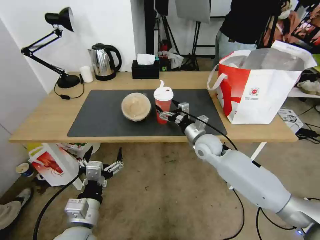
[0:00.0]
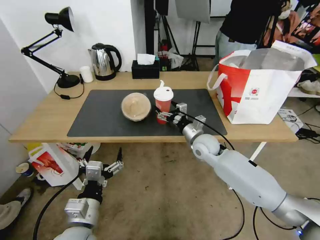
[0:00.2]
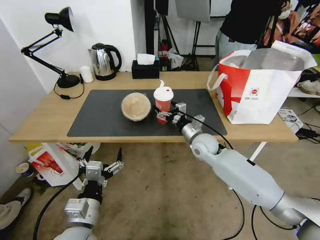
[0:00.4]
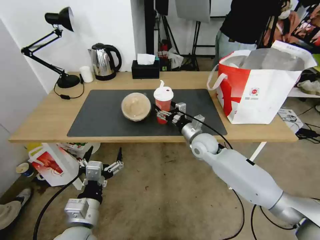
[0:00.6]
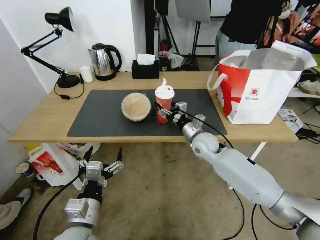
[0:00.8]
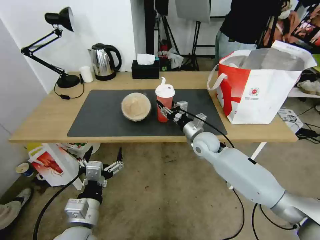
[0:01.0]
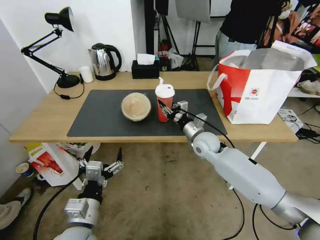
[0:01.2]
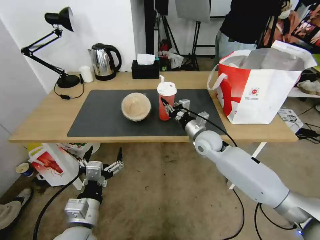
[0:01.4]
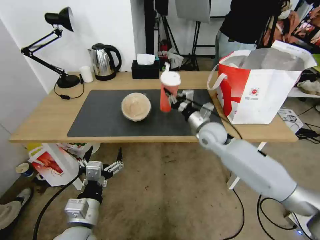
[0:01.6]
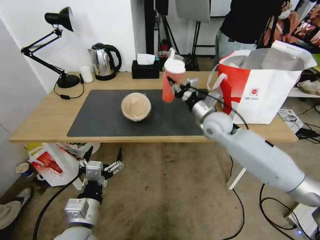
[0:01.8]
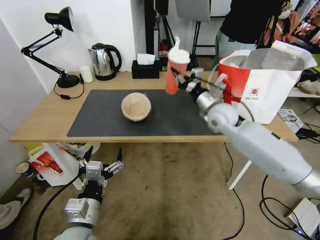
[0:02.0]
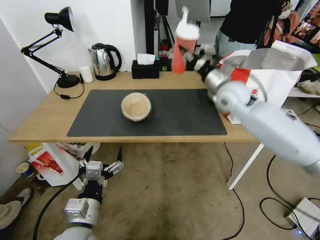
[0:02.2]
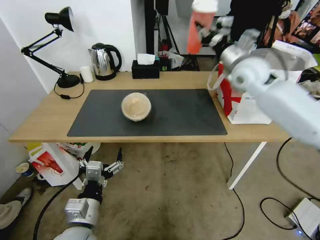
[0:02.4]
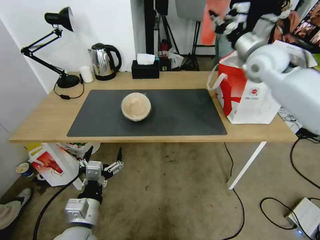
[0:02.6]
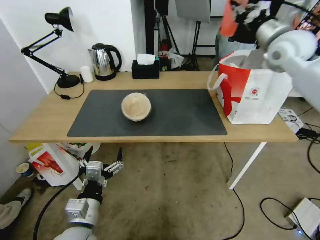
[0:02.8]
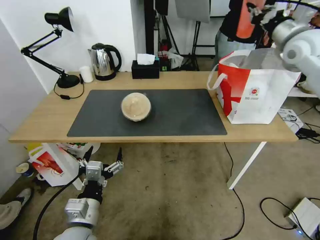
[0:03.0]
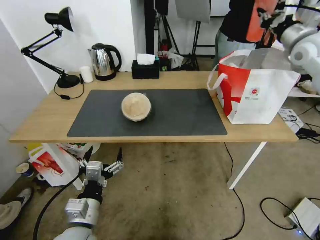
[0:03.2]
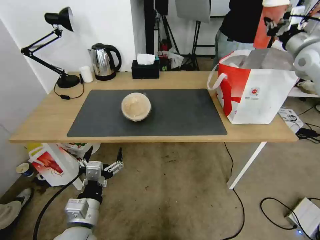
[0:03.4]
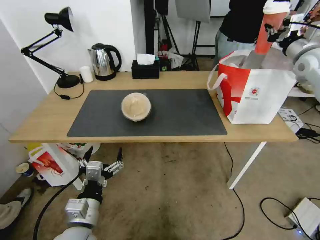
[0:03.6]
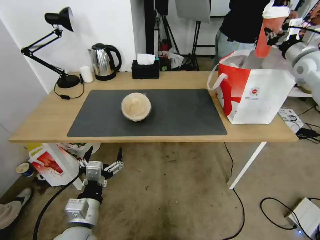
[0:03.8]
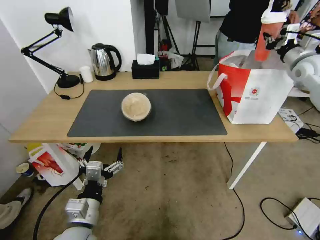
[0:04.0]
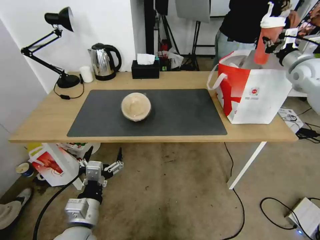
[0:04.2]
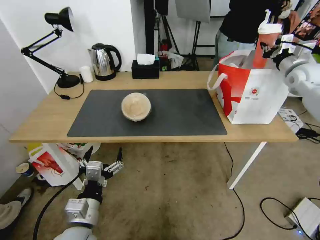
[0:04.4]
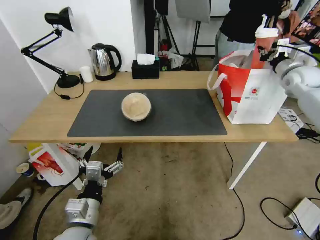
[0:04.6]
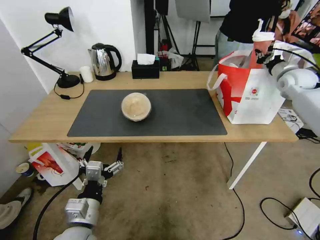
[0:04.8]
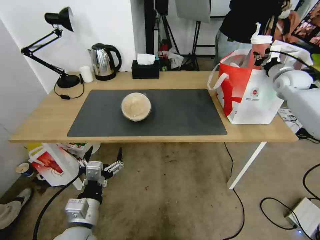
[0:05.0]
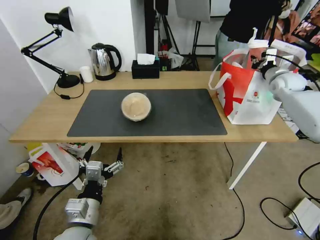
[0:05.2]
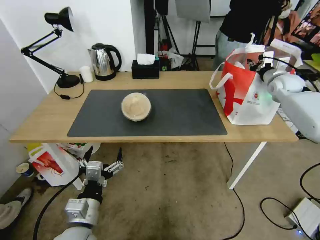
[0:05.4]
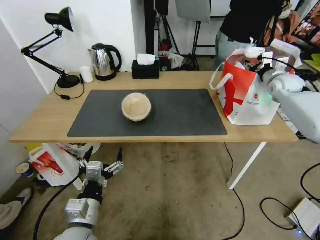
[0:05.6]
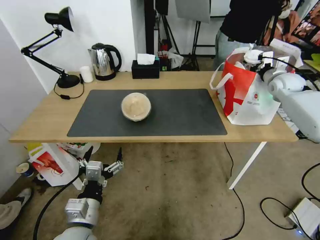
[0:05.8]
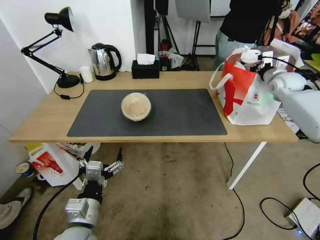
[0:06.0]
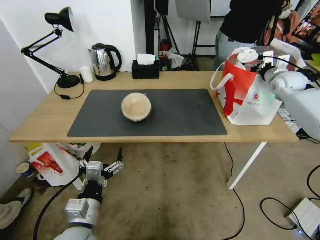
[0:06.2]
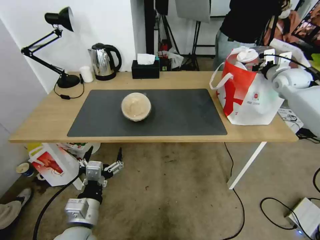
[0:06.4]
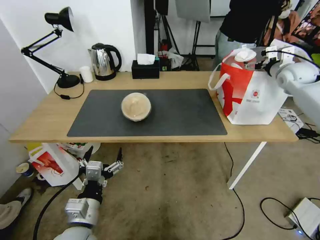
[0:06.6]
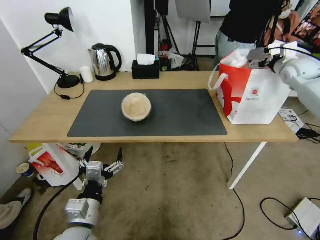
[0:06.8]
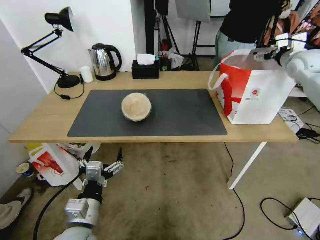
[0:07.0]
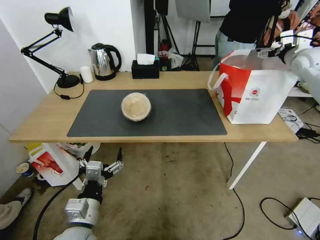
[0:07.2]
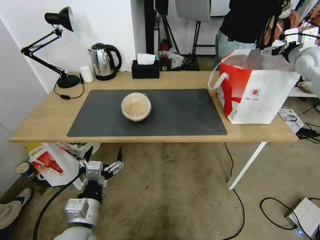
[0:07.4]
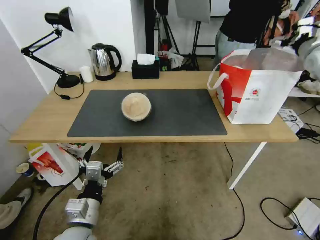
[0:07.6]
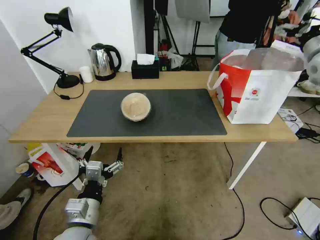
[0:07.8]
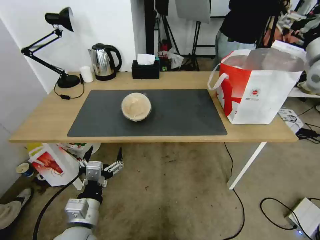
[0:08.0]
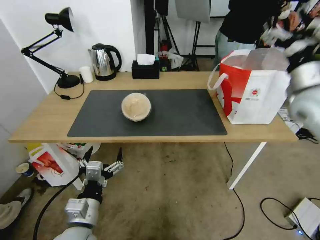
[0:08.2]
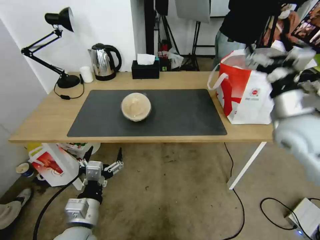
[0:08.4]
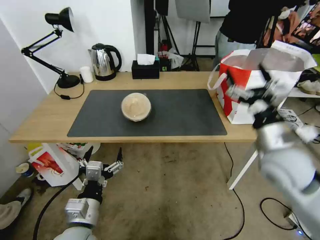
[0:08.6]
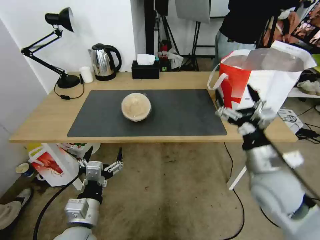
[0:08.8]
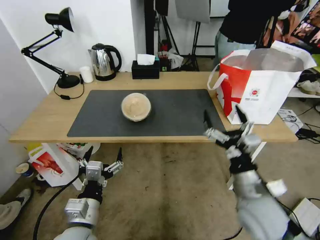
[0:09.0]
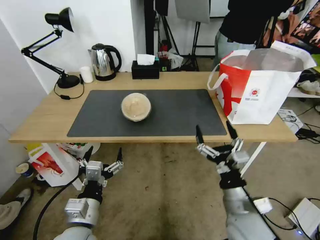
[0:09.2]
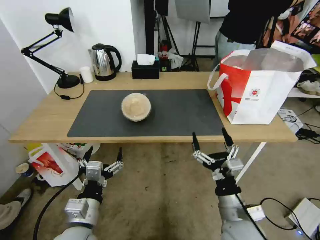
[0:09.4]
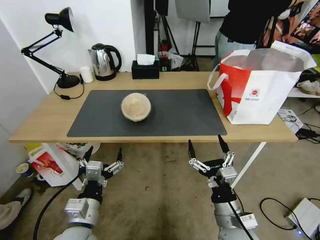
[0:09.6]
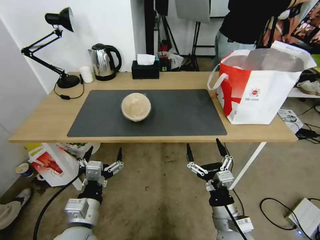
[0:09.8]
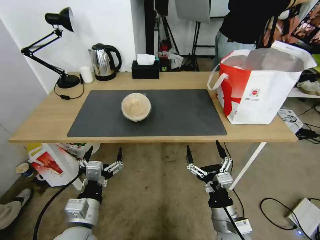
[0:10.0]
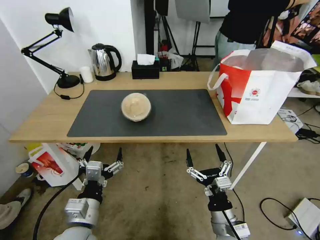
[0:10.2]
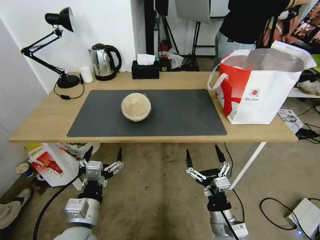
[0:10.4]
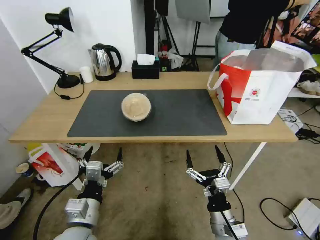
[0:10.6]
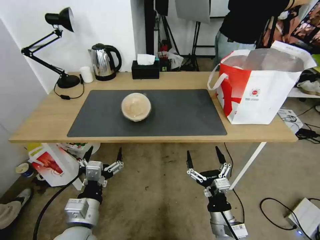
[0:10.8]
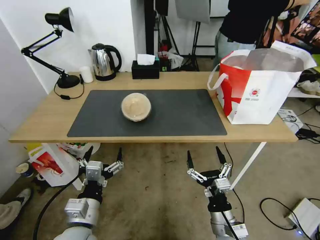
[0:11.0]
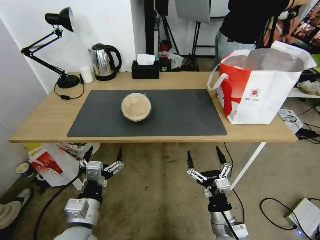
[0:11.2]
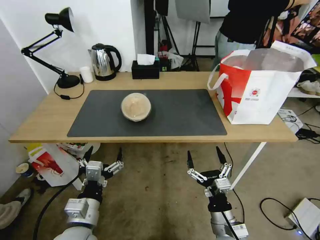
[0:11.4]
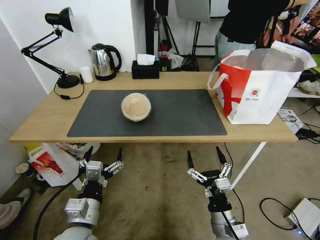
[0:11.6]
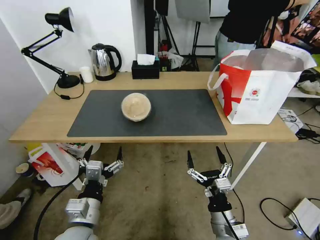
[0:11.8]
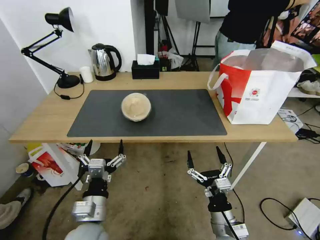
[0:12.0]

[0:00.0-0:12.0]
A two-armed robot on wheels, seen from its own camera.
Task of the whole recording: Pick up the trash from the table and place it into the takeout bag.
0:00.0 to 0:01.6: The right gripper closes up.
0:01.6 to 0:03.0: The right gripper travels upward and to the right by roughly 35 cm.
0:03.0 to 0:04.4: The right gripper moves downward and to the right, some 15 cm.
0:04.4 to 0:06.0: The right gripper ends up some 5 cm from where it was, and opens up.
0:06.0 to 0:07.6: The right gripper goes approximately 10 cm upward.
0:07.6 to 0:09.0: The right gripper travels backward, to the left and downward by about 50 cm.
0:09.0 to 0:10.4: The right gripper travels downward and backward by roughly 15 cm.
0:10.4 to 0:12.0: There are only small adjustments of the grippers.

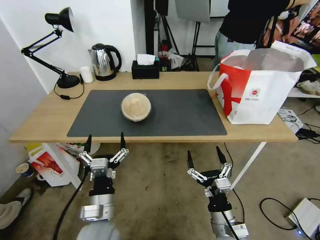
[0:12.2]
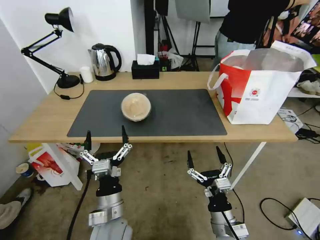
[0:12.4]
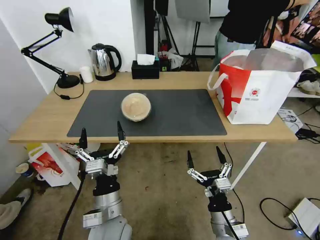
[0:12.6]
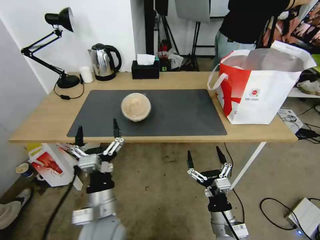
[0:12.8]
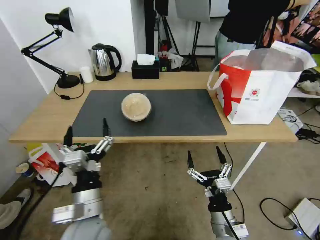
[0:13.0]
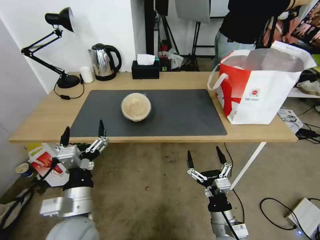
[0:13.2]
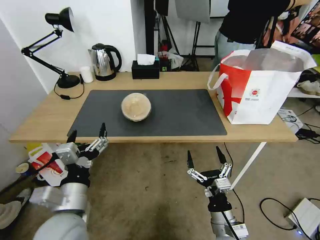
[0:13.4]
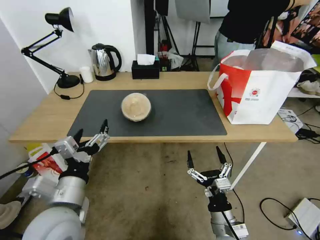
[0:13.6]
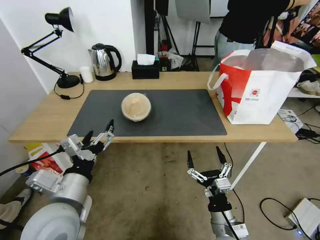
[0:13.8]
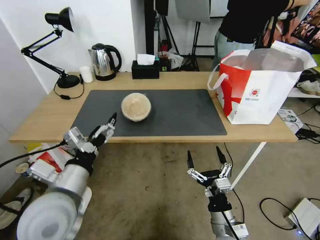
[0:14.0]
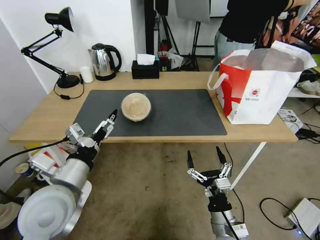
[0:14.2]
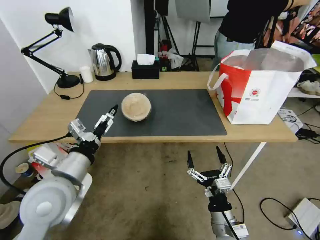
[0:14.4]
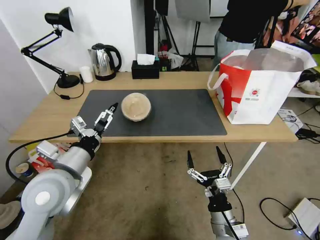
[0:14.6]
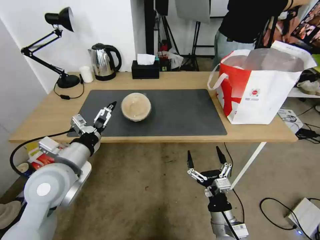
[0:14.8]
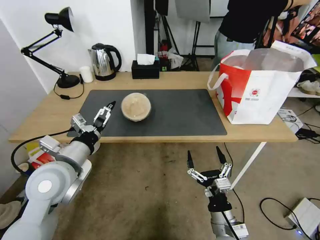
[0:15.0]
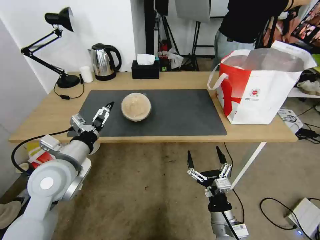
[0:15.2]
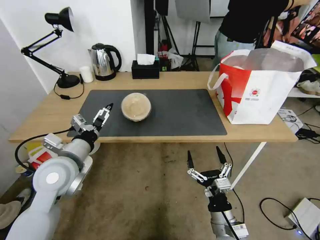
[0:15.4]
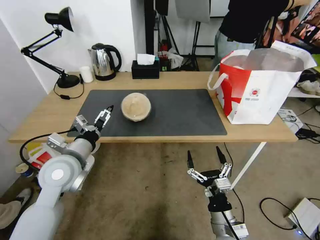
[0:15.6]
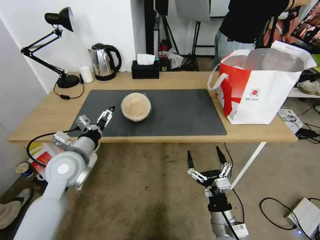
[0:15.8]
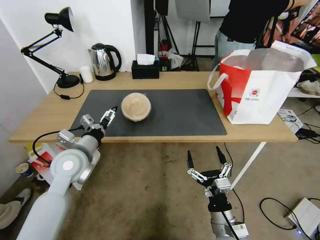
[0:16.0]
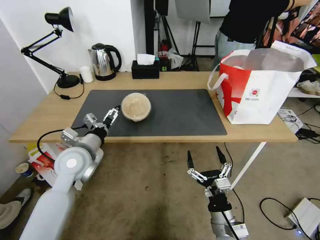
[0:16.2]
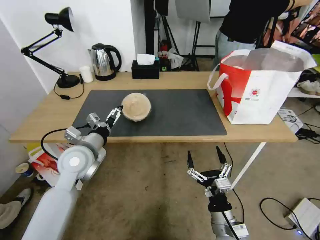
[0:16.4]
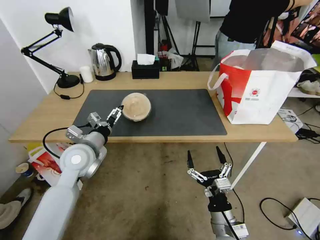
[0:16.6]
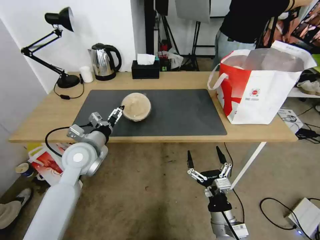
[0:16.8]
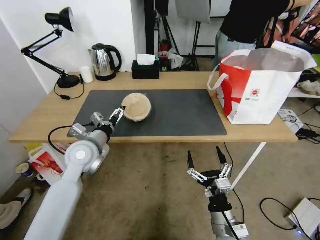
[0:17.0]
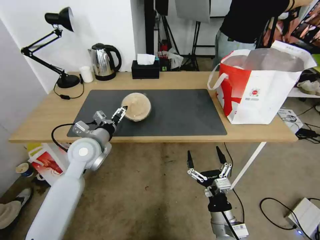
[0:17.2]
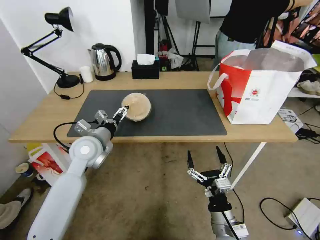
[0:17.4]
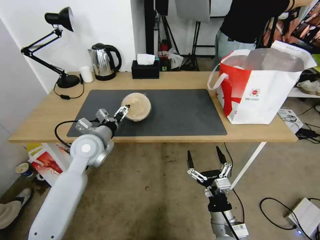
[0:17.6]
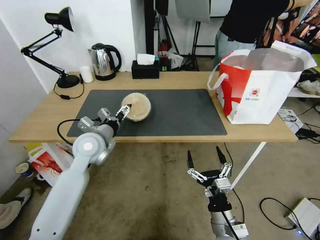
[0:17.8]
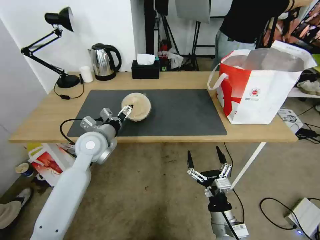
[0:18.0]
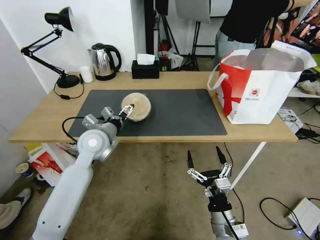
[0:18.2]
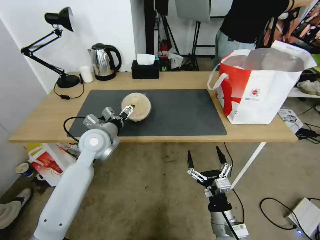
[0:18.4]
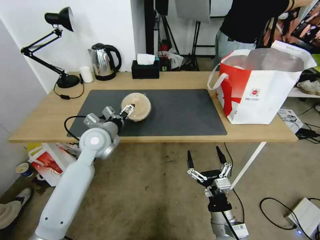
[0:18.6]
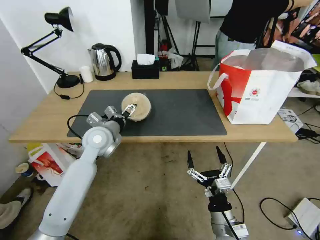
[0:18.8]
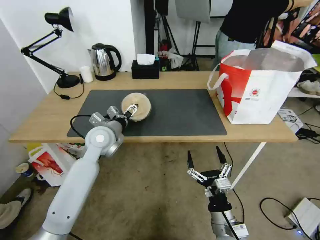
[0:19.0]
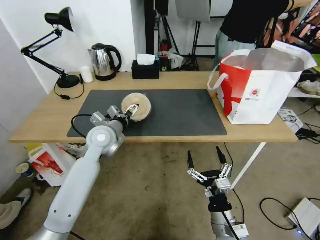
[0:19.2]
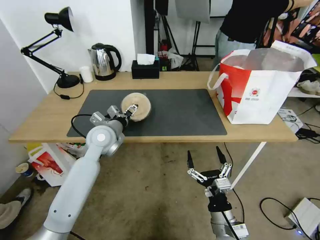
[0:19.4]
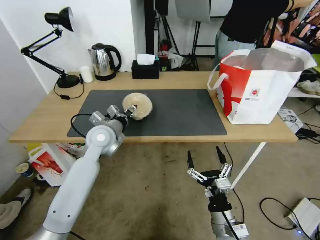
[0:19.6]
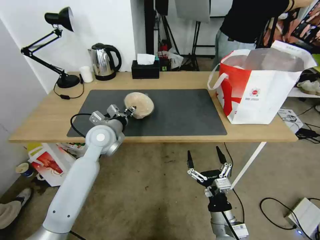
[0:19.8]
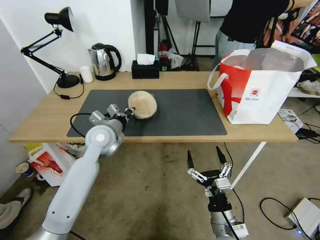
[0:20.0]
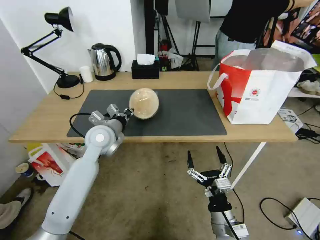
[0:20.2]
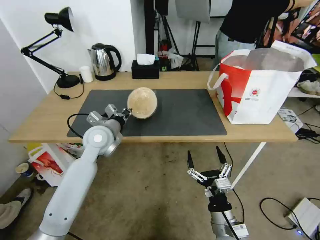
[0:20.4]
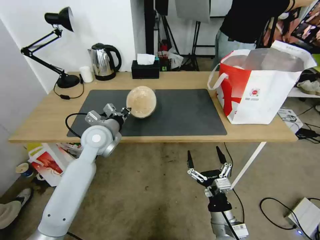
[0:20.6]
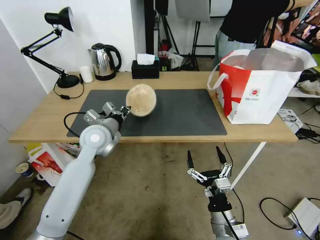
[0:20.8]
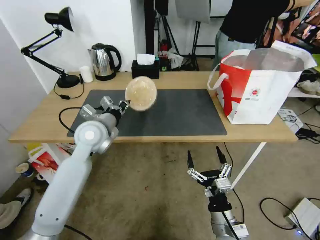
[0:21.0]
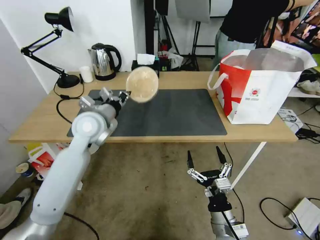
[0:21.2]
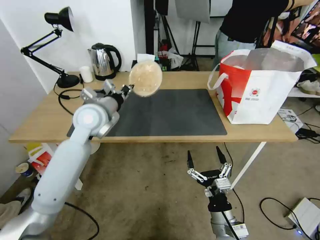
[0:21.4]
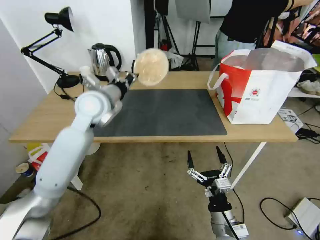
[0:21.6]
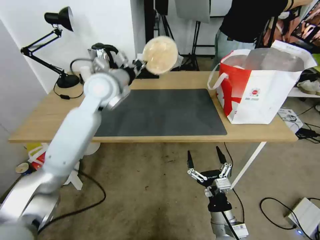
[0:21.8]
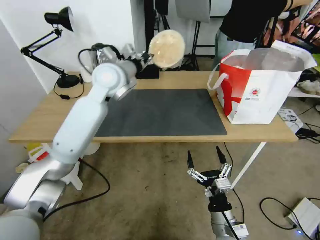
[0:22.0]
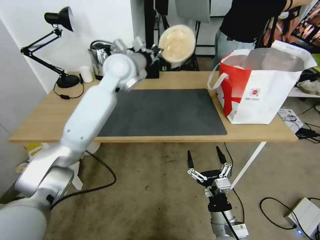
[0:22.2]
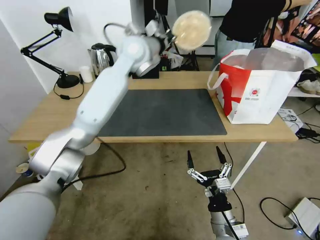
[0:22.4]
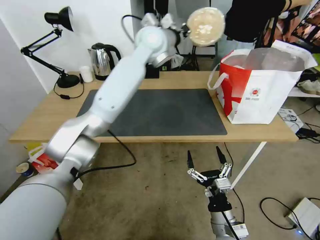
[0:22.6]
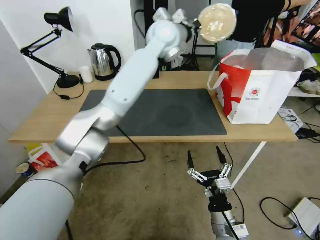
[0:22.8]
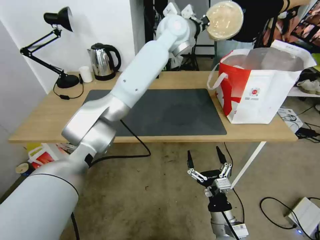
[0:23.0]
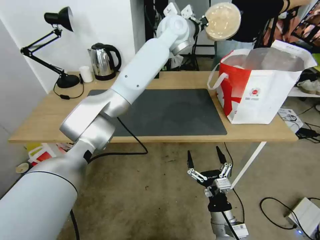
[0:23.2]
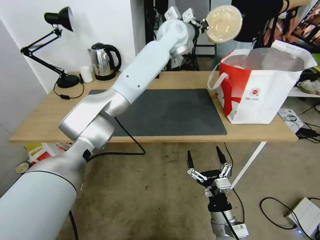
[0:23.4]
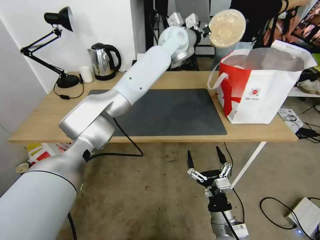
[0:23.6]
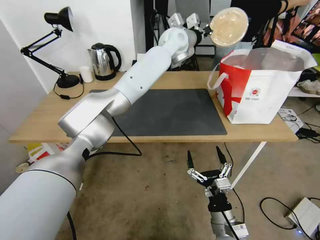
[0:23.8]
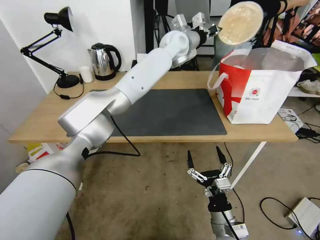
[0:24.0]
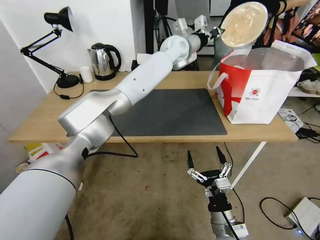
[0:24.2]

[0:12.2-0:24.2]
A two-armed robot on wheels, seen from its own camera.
Task of the whole recording: Pick up the trash from the table and place it into the takeout bag.
0:12.2 to 0:13.8: The left gripper heads upward and to the left, covering some 15 cm.
0:13.8 to 0:15.2: The left gripper goes approximately 10 cm forward.
0:15.2 to 0:16.6: The left gripper moves forward, approximately 5 cm.
0:16.6 to 0:18.2: The left gripper heads forward, covering approximately 5 cm.
0:18.2 to 0:19.8: The left gripper closes its fingers.
0:19.8 to 0:21.2: The left gripper shifts some 5 cm upward, and closes its fingers.
0:21.2 to 0:22.6: The left gripper heads upward, to the right and forward, covering some 30 cm.
0:22.6 to 0:24.2: The left gripper travels to the right and forward by about 15 cm.
